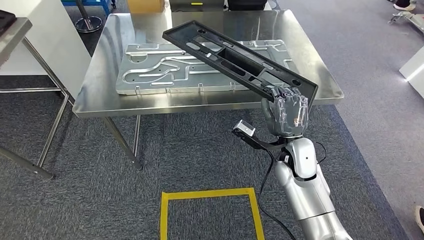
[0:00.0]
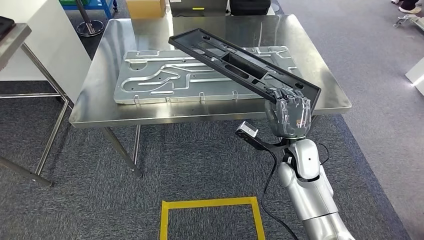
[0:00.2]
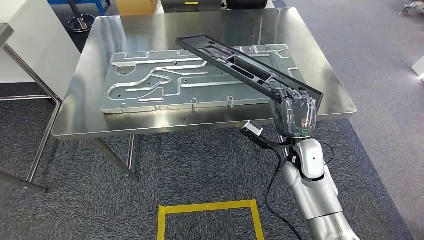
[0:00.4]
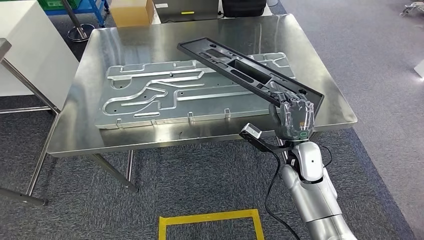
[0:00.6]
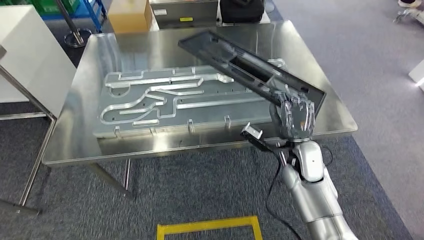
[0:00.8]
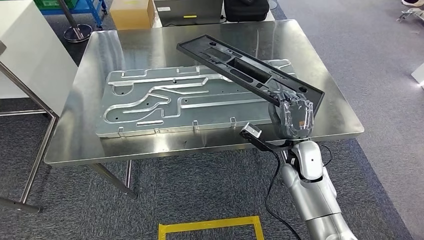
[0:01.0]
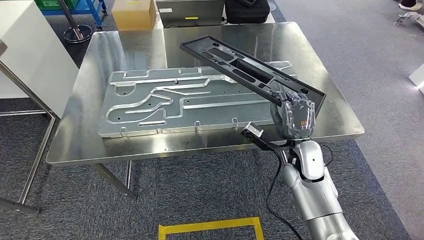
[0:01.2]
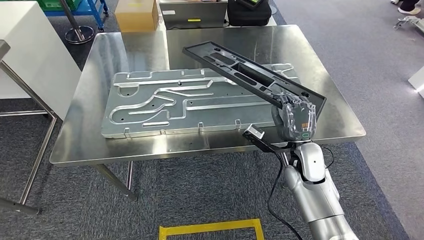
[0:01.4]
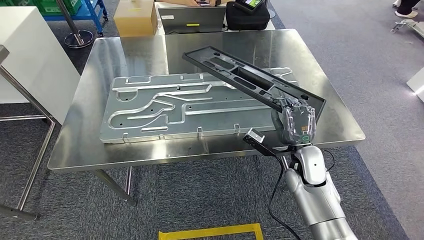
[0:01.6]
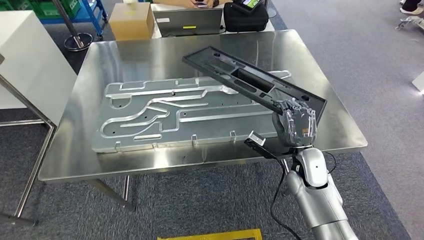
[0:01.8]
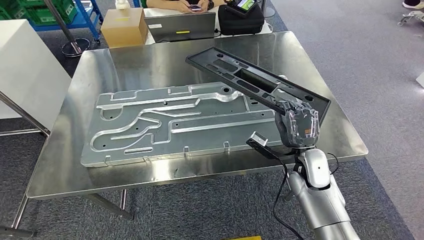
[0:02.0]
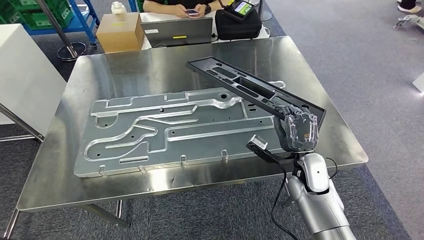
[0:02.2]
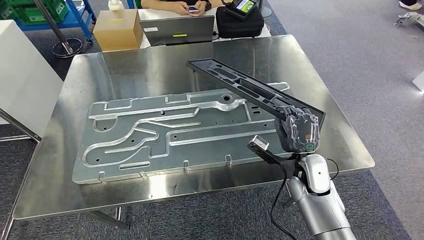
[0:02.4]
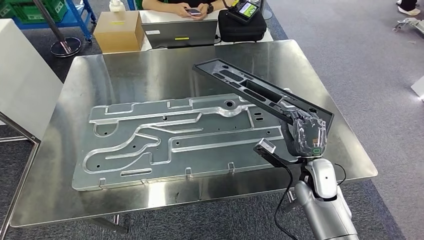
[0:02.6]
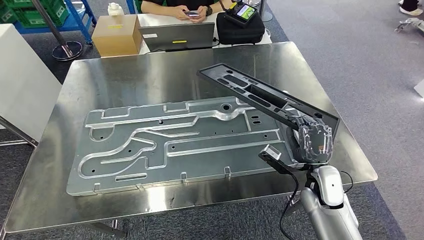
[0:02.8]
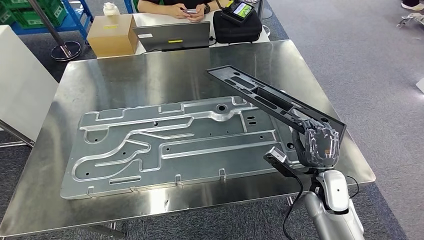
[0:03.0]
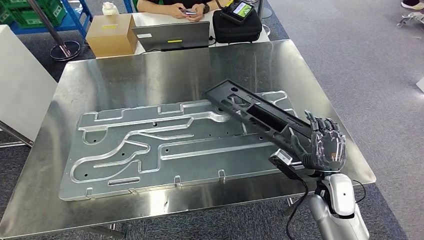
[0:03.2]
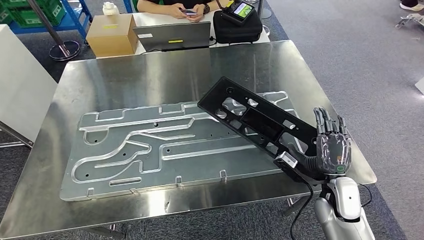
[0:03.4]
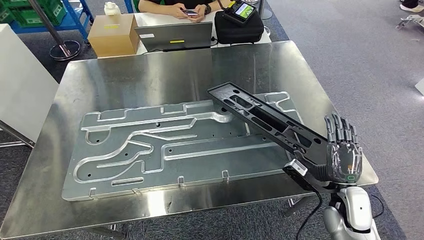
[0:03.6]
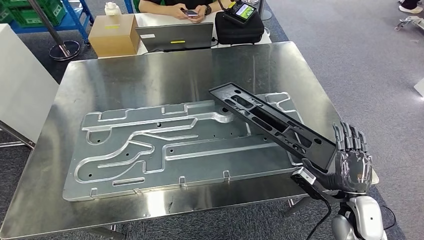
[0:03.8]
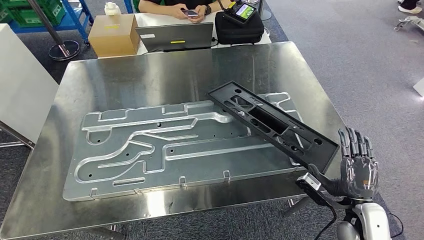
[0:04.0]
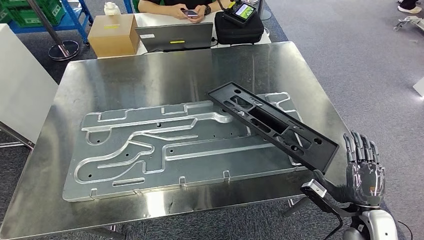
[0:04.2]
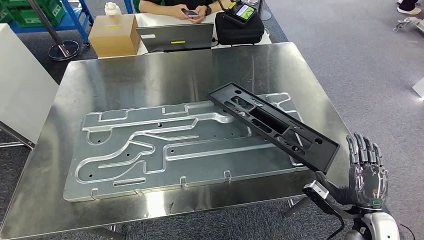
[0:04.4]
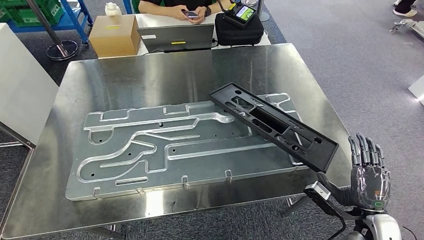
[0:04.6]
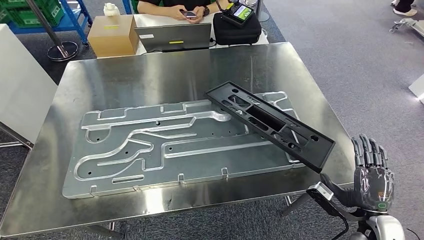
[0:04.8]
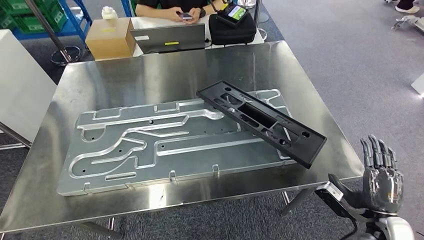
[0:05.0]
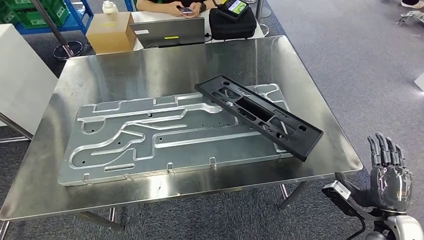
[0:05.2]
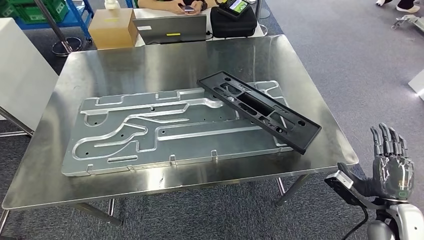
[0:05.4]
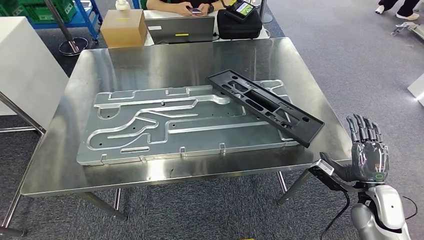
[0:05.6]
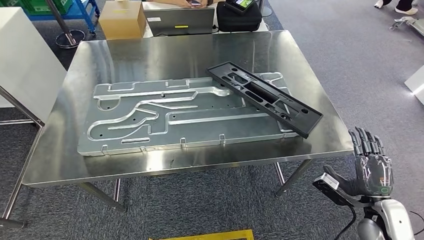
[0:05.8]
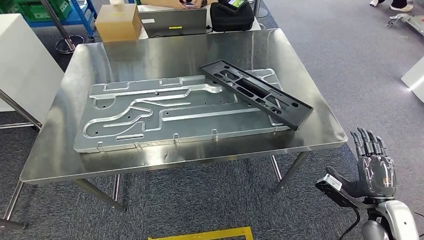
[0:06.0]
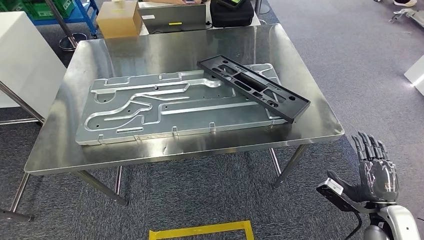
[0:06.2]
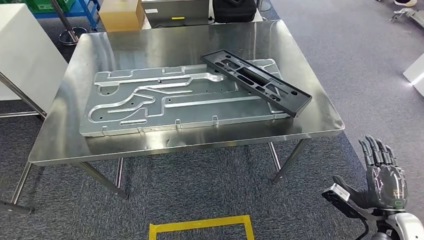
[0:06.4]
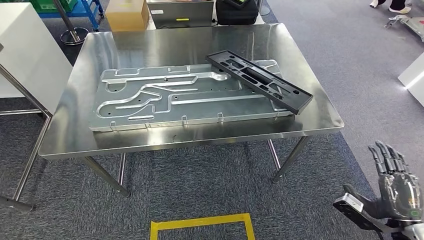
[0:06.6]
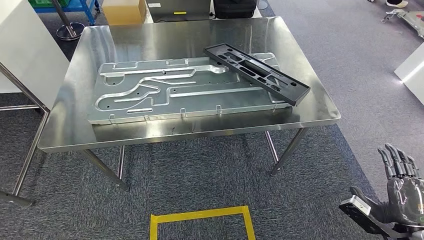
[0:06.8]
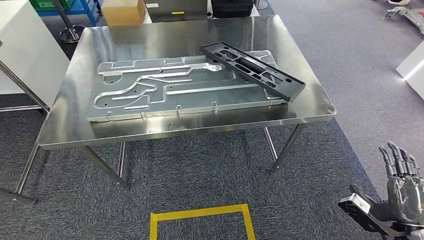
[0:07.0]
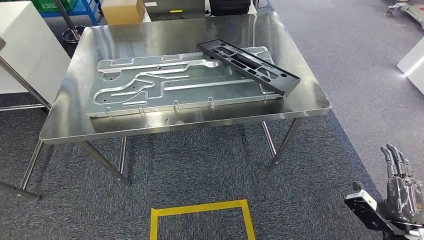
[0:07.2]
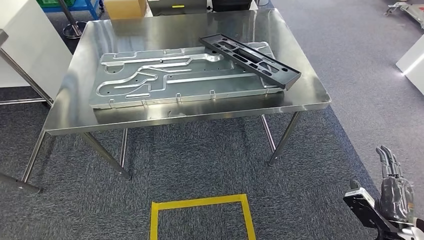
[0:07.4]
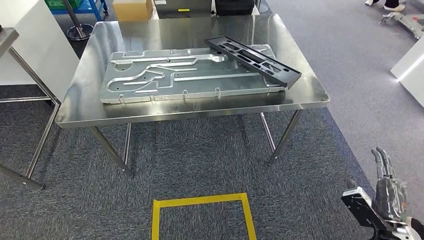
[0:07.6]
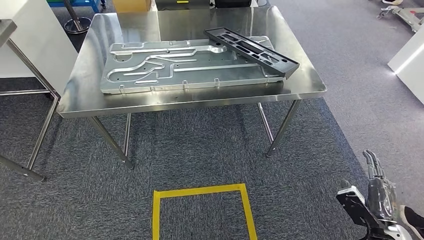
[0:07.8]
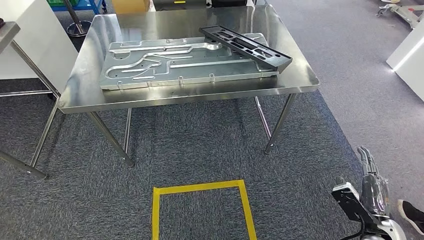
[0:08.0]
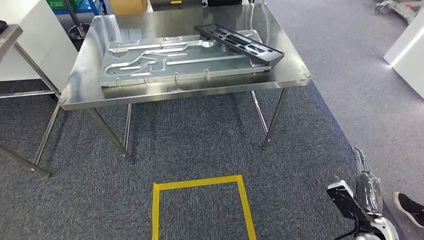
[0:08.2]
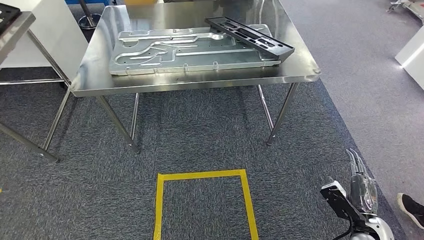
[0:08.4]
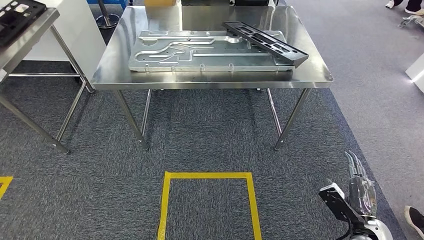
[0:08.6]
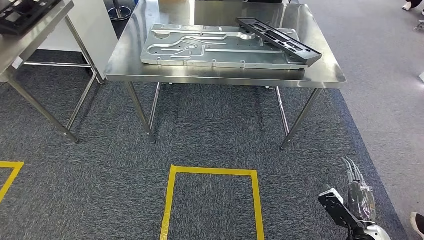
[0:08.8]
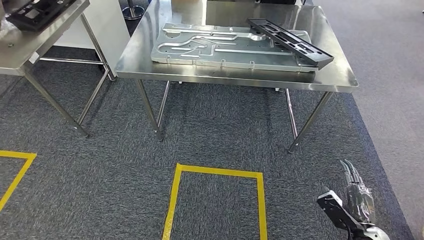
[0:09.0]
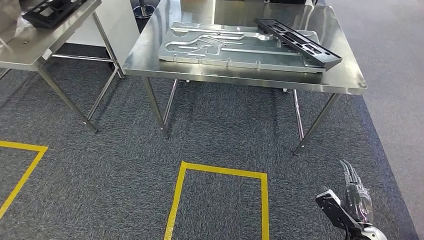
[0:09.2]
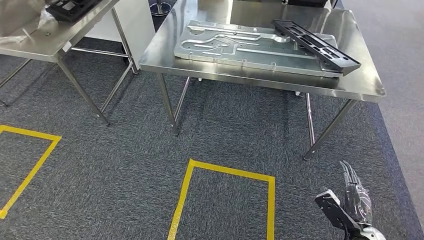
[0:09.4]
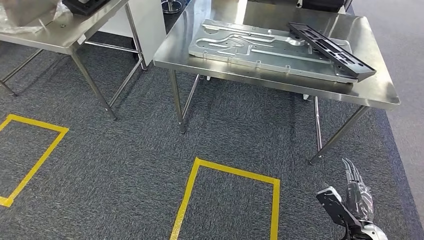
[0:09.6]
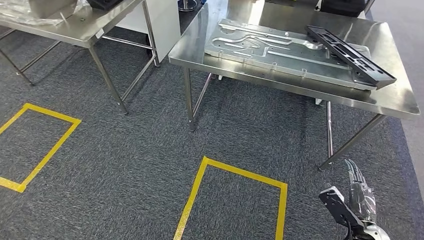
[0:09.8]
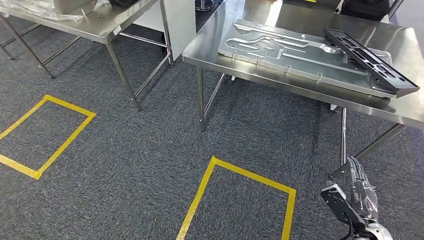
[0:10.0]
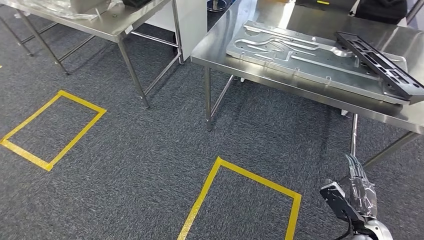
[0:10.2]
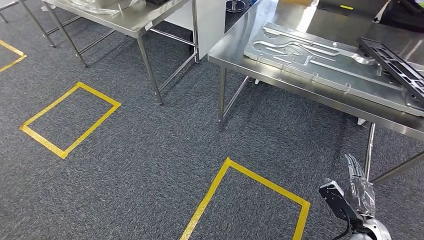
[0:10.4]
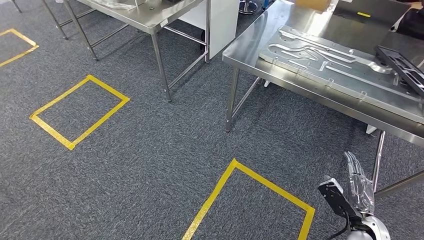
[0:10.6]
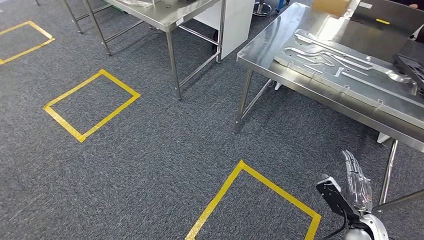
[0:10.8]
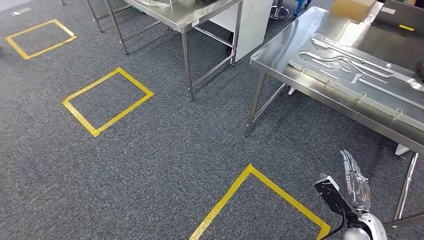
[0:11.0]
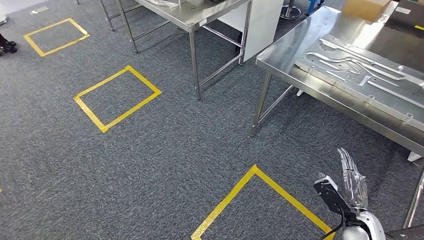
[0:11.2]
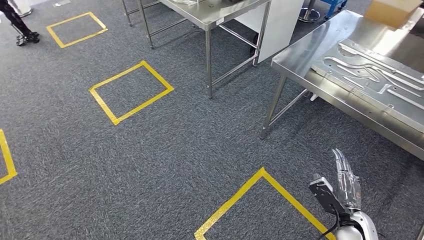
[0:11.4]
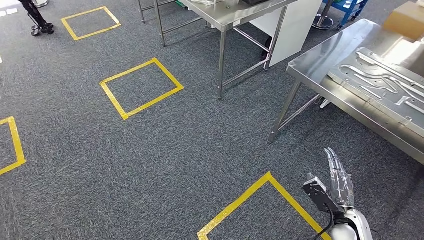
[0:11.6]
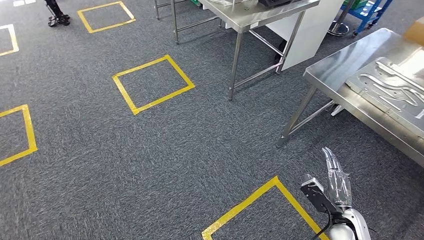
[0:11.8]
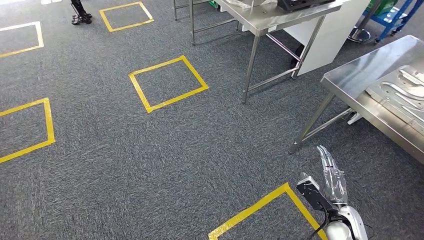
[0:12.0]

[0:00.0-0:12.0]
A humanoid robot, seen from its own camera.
Step, 0:01.0 to 0:04.8: Insert the large material into the corresponding slot on the workbench.

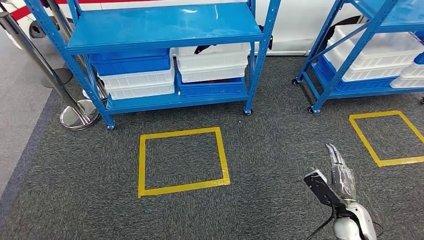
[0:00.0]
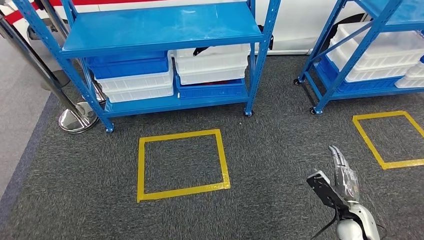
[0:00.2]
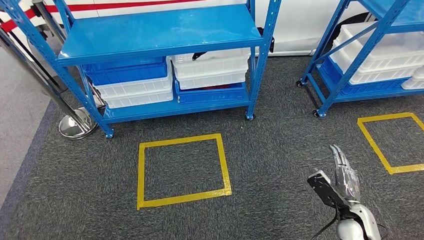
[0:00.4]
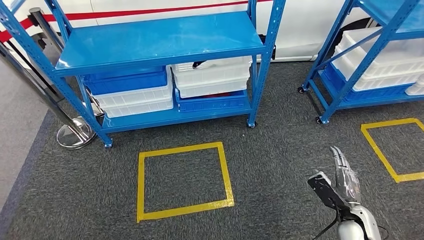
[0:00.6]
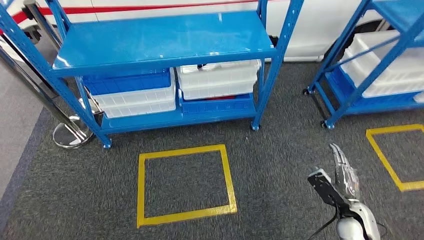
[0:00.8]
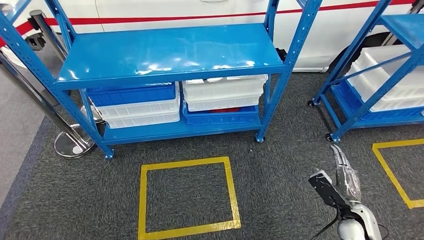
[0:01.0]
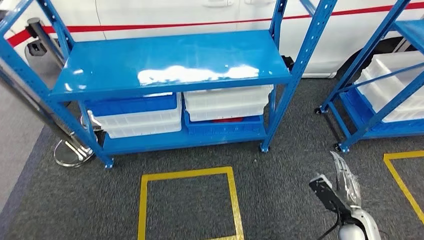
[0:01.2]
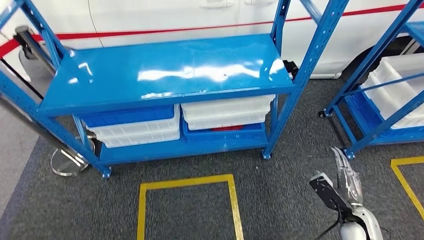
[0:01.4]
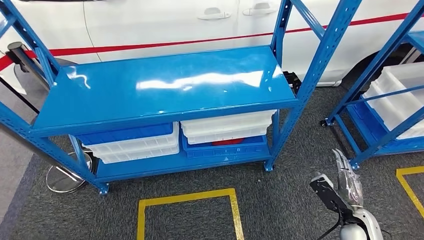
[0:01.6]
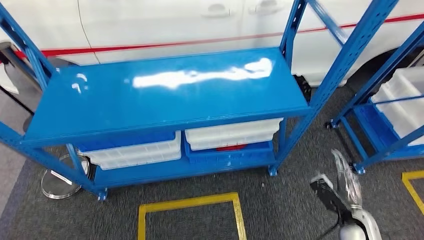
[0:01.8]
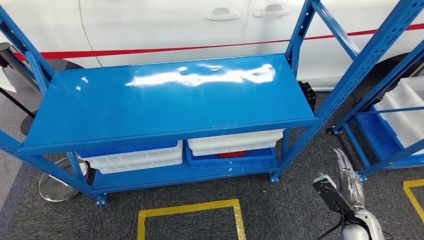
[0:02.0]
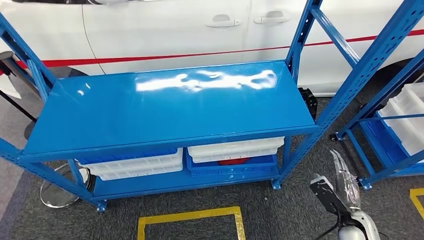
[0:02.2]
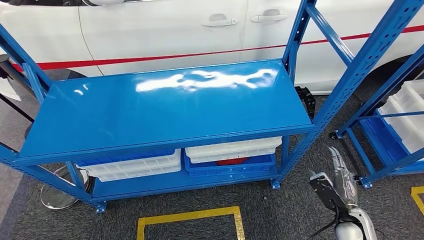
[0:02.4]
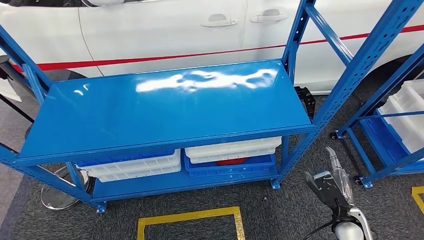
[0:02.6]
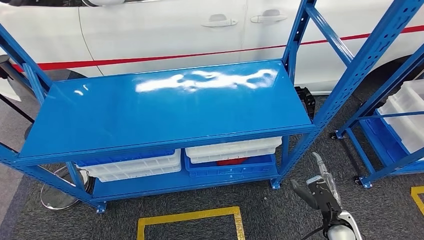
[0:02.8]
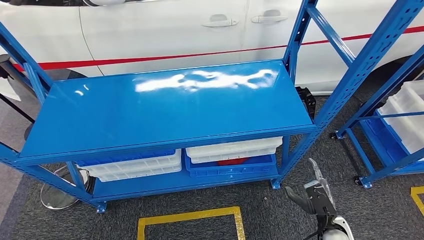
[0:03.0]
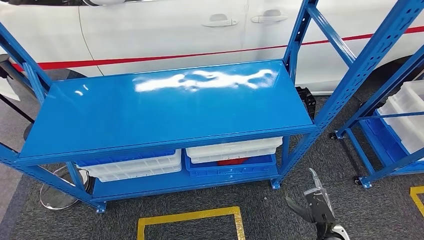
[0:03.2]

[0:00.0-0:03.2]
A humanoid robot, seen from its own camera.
Step, 0:00.0 to 0:03.2: Move to the initial position of the shelf.

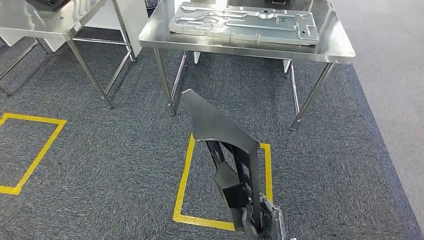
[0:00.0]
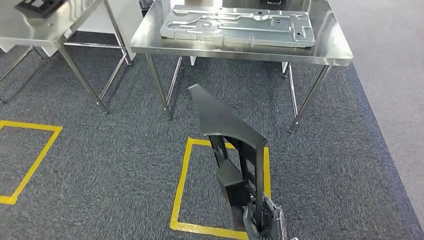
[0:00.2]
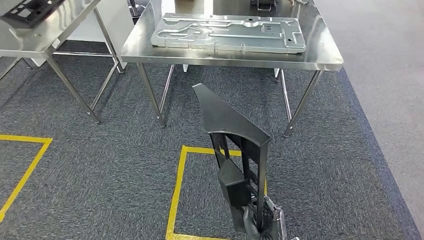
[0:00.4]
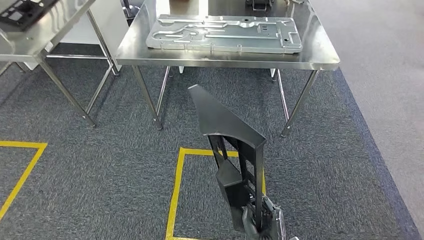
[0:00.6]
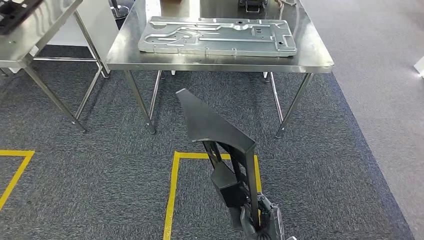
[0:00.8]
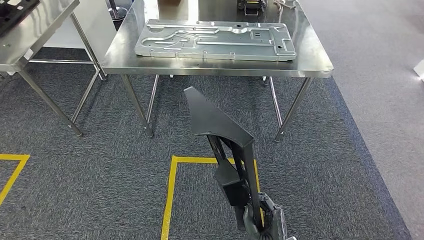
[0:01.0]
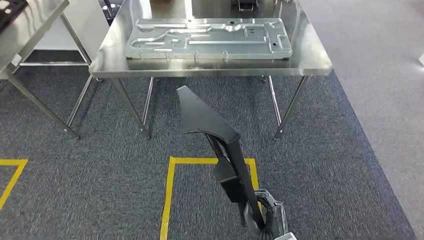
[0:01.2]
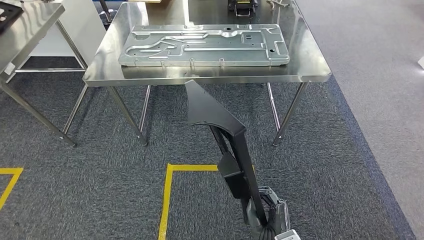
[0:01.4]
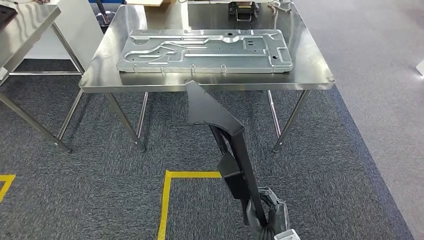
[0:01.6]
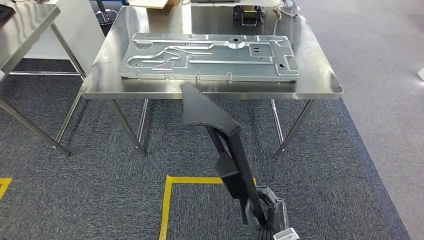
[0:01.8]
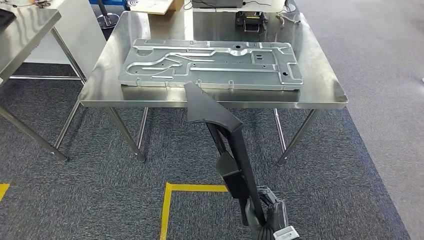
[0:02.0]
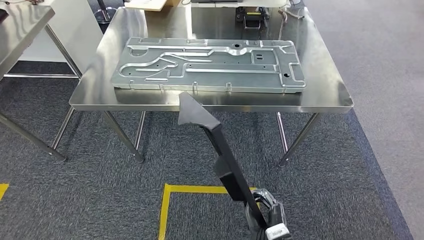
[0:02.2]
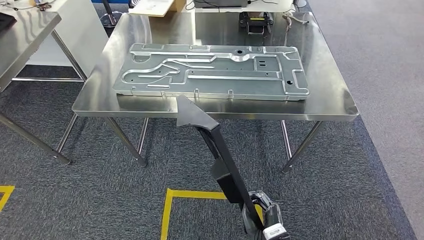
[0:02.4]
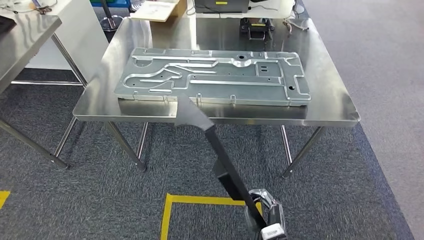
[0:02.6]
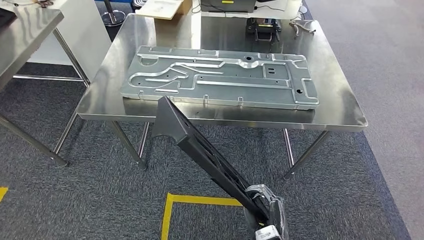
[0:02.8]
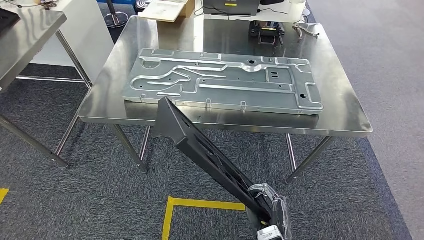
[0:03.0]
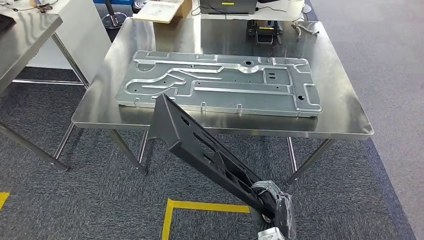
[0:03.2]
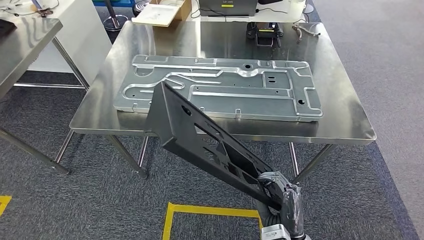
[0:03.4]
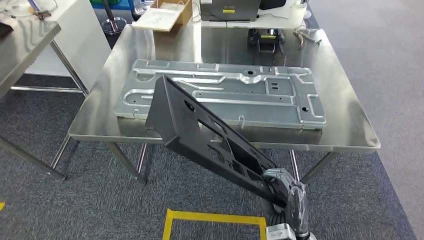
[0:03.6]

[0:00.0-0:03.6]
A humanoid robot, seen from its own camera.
Step, 0:00.0 to 0:02.2: Move the large material to the workbench.
